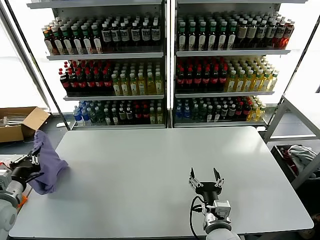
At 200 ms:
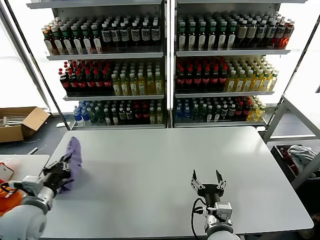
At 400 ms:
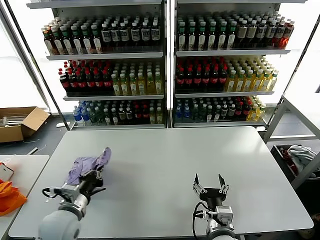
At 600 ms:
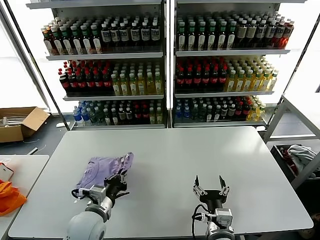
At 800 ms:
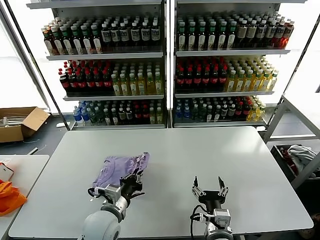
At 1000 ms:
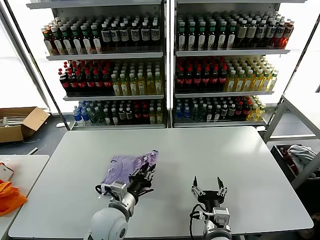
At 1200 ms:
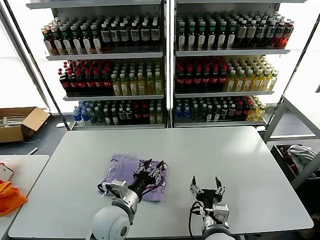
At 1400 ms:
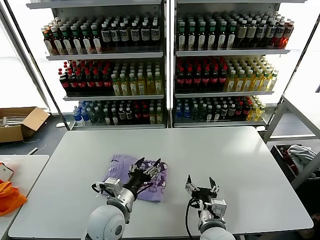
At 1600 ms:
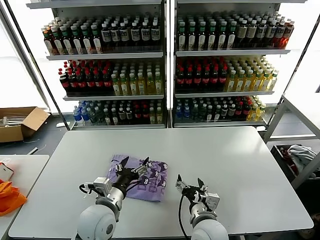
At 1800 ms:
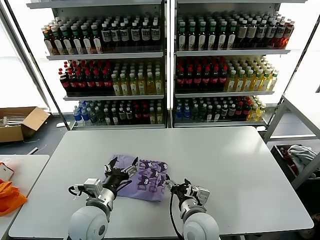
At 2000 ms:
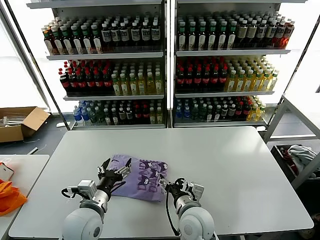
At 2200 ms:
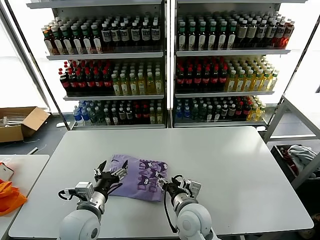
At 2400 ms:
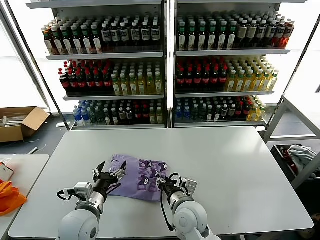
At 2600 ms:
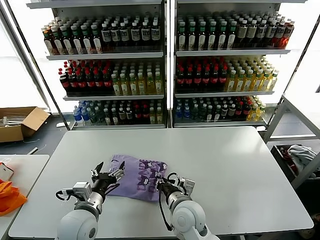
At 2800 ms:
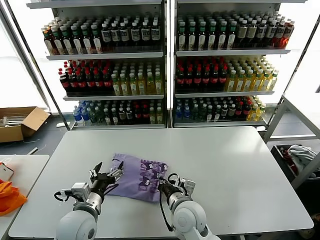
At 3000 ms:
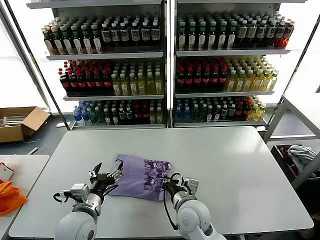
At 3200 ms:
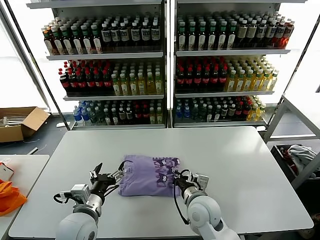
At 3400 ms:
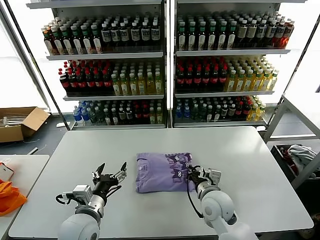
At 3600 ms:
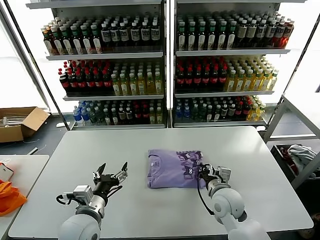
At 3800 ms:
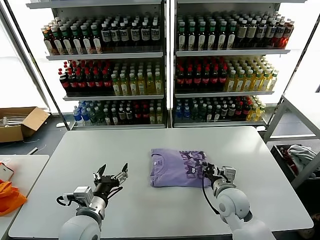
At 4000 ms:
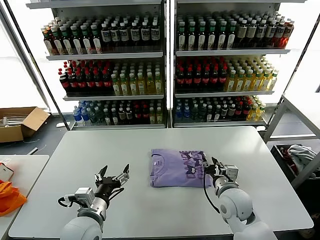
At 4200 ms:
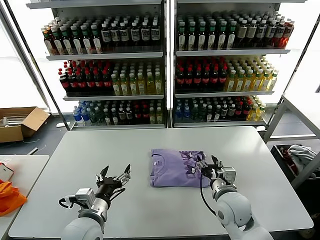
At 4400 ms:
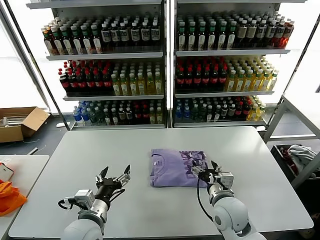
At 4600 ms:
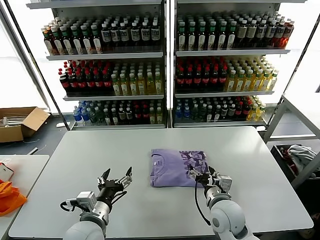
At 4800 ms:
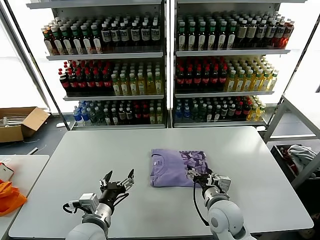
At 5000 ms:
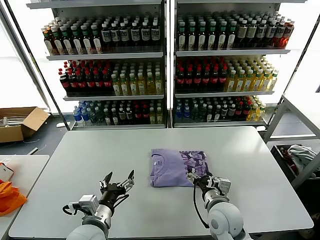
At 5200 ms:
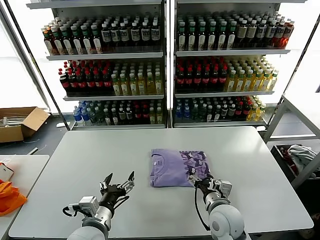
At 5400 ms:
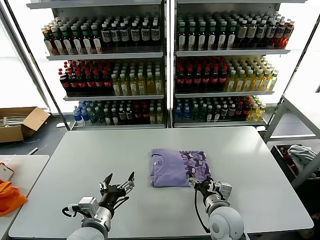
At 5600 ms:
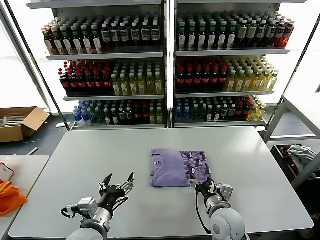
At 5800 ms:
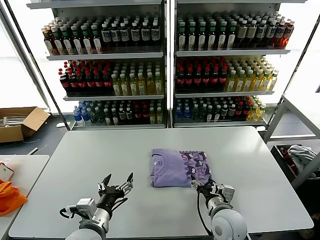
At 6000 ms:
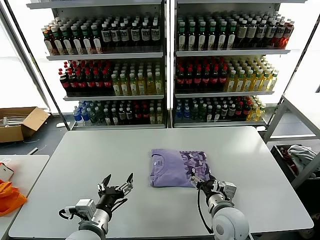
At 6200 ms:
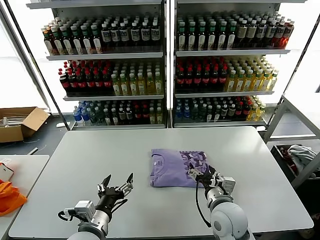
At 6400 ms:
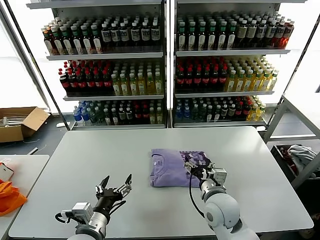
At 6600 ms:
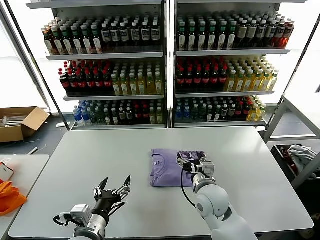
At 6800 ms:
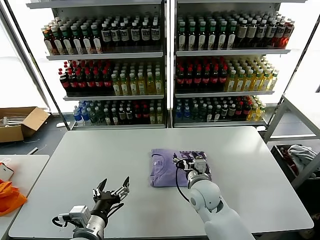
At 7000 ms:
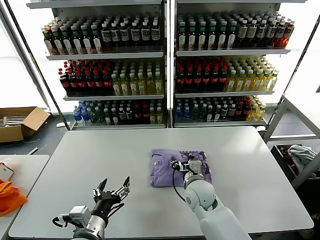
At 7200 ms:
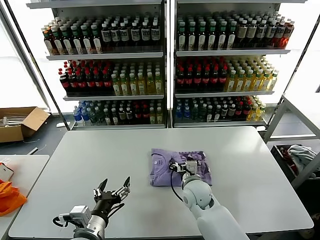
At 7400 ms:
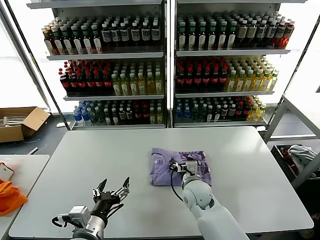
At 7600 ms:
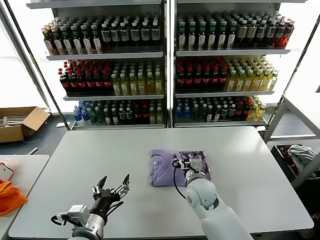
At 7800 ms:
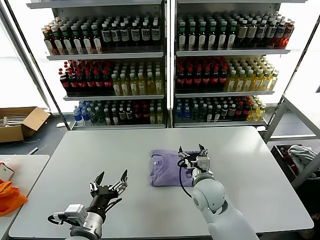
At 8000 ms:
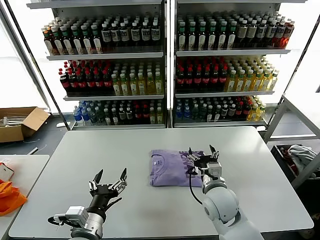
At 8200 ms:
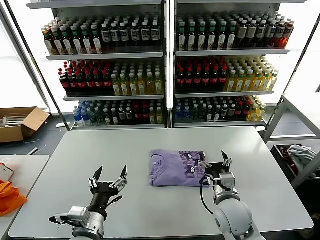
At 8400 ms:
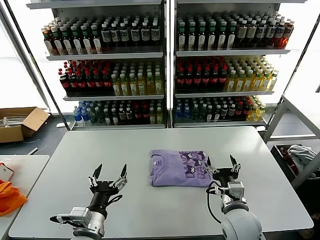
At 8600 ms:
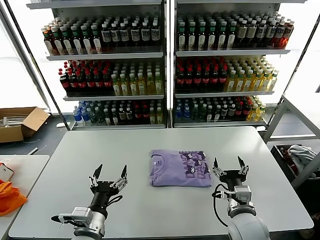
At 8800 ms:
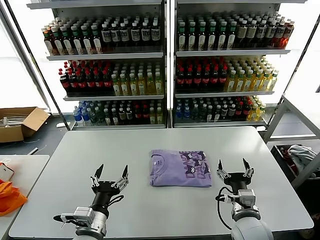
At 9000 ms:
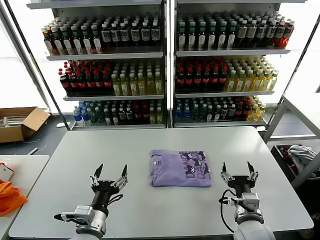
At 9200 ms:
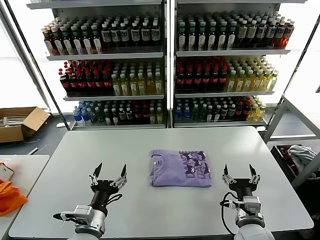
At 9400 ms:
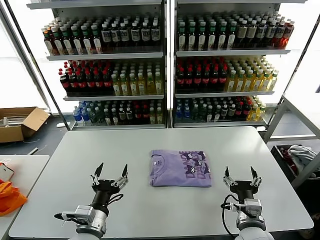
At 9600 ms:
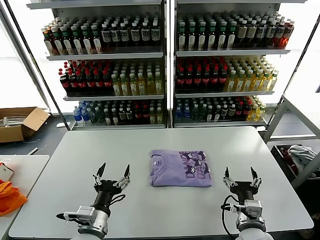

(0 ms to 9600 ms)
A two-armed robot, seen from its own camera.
Task of the whole recording: fold and organize the clothes.
Step, 1200 ms - 7400 ms: Drag the clothes to the center of the table.
0 ms - 1600 ms: The left gripper moves to the right, about 25 cm, and opens.
1600 ms - 3200 ms: The left gripper travels to the left by roughly 5 cm, while the right gripper moves forward, about 5 cm, and closes its fingers.
3200 ms - 4800 ms: The right gripper moves to the right, about 5 cm, and opens.
4800 ms - 6400 ms: There are only small adjustments of the grippers.
8000 ms - 9600 ms: The right gripper goes some 15 cm backward and to the right.

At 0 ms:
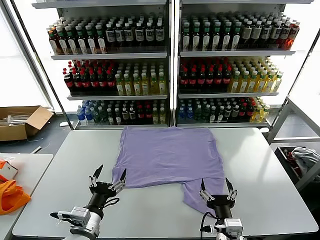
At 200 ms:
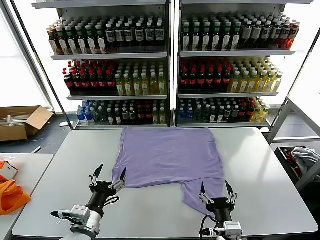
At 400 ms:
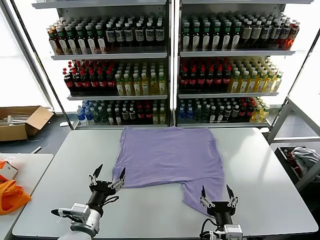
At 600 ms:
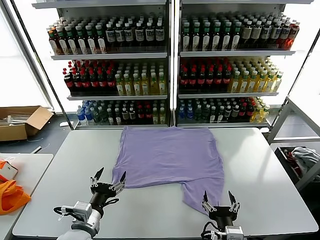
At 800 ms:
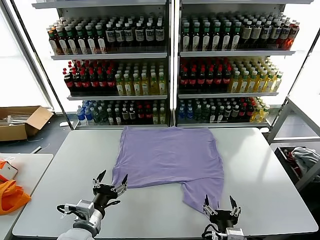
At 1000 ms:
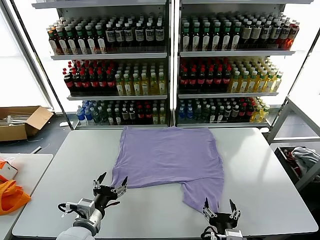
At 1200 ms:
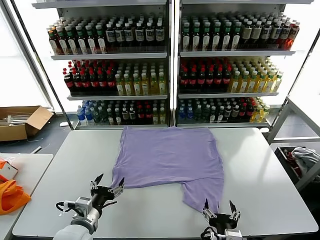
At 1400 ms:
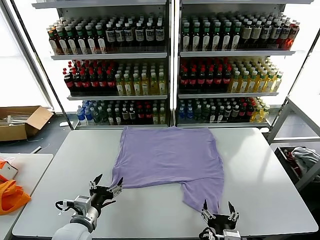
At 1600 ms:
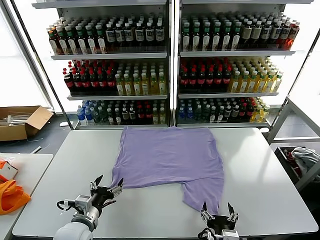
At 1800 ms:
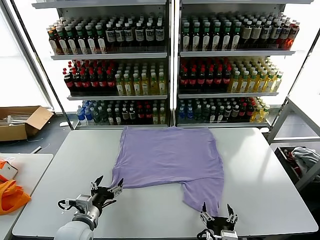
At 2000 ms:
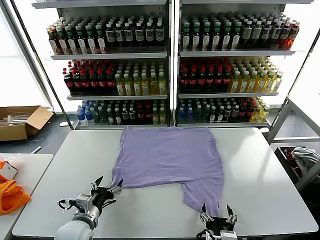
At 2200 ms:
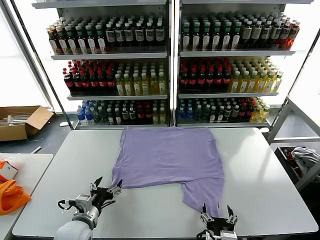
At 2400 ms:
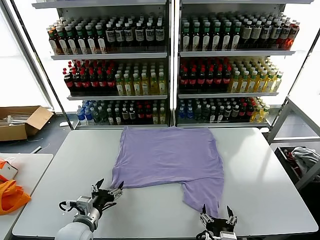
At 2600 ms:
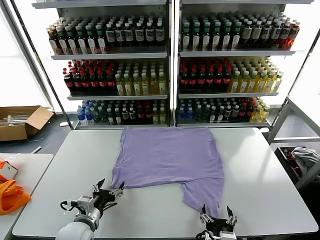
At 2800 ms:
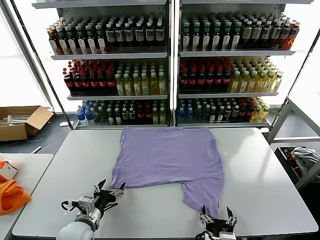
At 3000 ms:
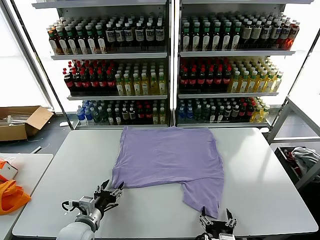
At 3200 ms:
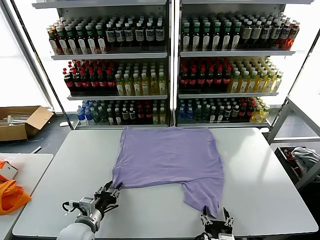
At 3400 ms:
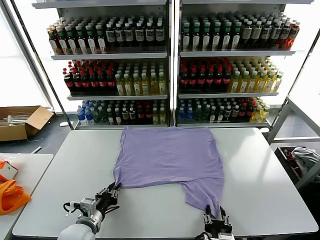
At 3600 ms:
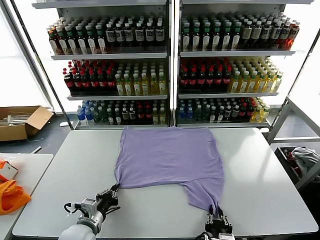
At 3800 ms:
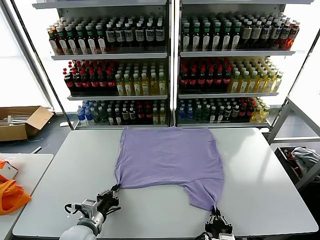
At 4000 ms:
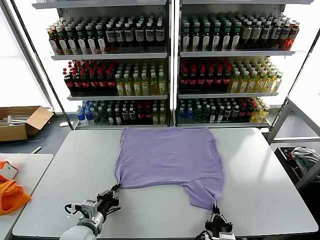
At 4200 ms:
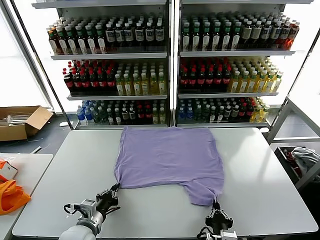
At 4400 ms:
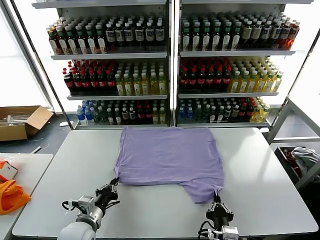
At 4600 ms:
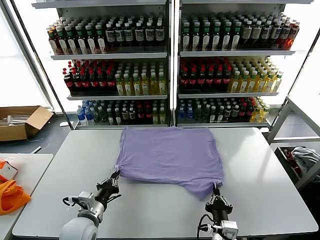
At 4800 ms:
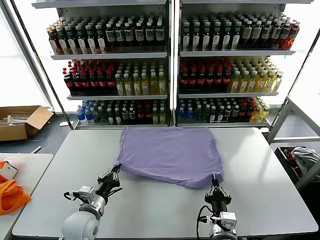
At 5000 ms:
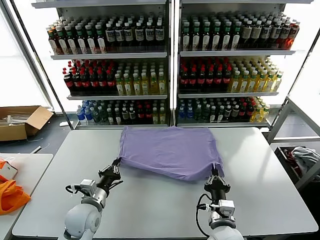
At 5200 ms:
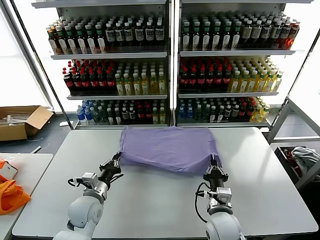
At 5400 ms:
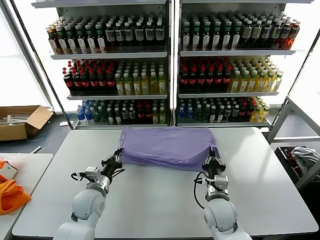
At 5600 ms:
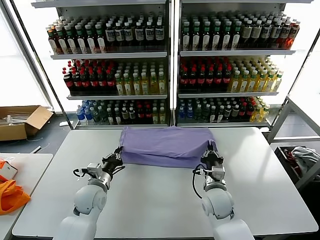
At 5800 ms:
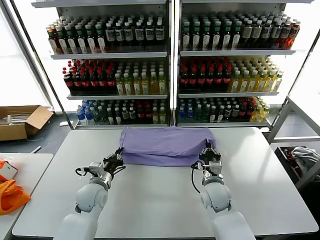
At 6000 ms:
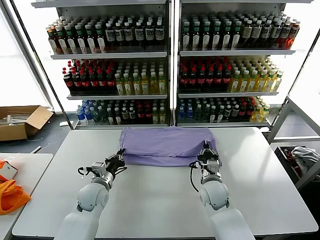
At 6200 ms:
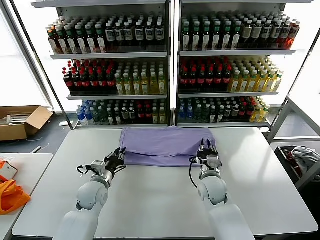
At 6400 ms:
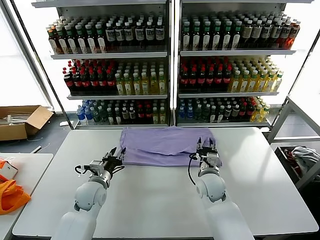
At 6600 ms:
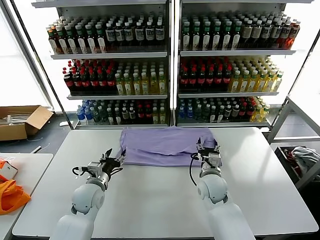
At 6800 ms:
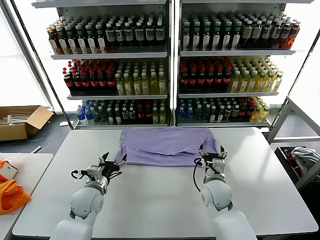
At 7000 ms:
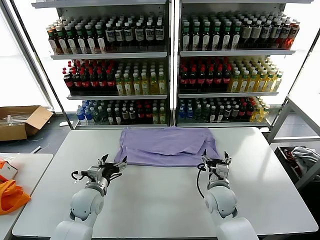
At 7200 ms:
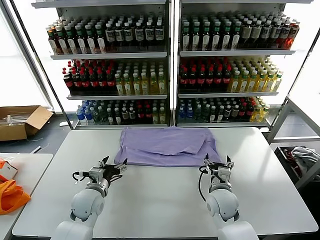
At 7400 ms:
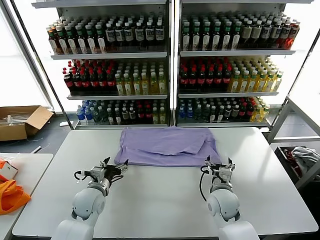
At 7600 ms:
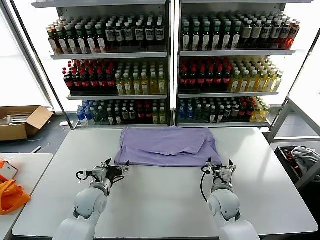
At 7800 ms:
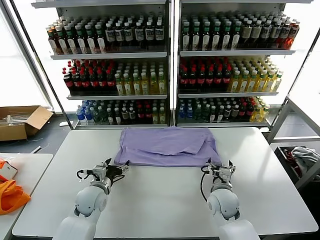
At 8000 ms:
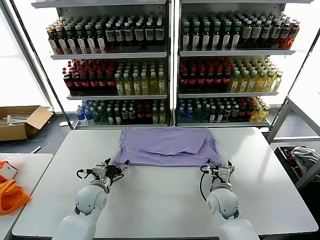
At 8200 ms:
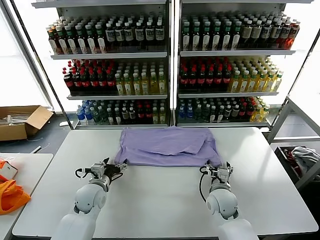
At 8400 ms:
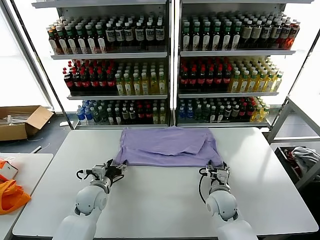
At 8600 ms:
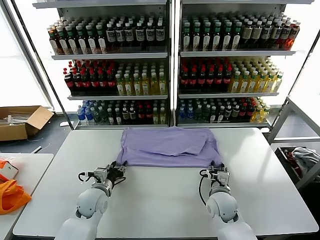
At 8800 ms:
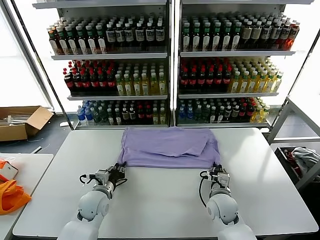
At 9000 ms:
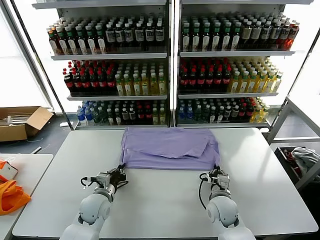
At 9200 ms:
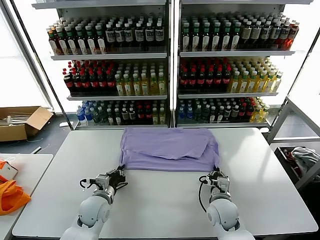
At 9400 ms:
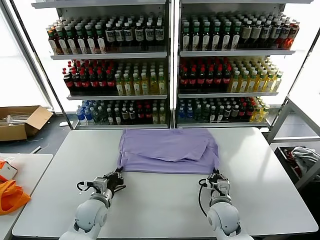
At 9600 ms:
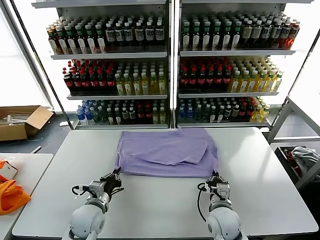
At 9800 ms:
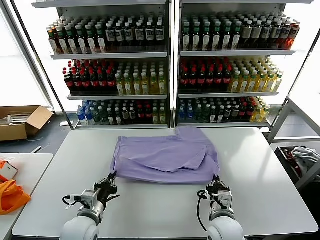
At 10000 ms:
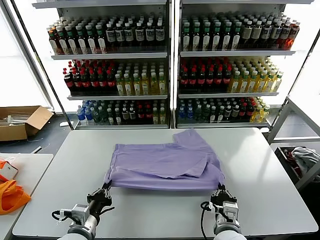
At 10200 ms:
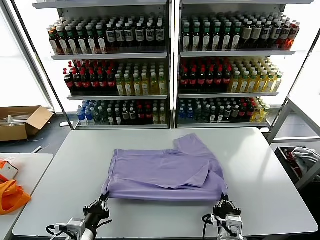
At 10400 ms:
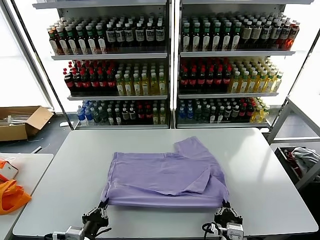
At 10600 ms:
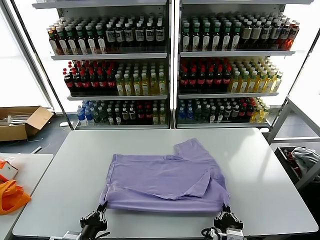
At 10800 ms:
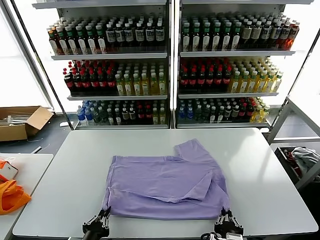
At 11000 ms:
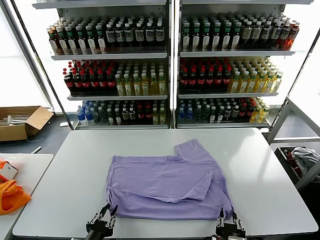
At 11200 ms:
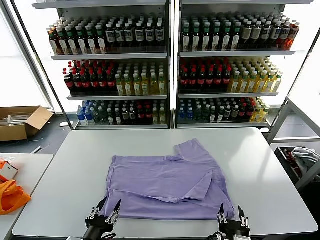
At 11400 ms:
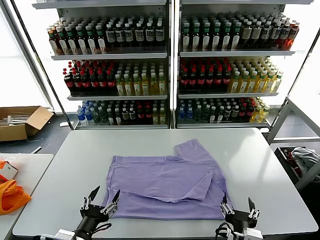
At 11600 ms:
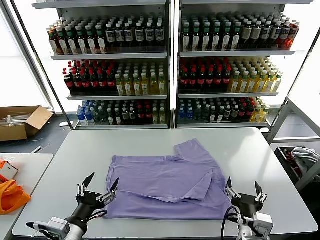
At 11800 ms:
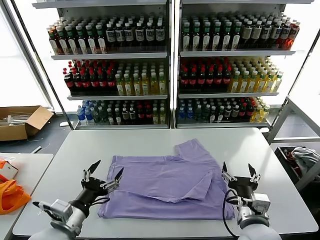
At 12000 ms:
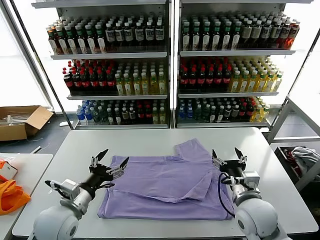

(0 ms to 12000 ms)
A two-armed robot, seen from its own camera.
Task of the whole recording: fold and organize the clothes.
Step, 0 ms - 4200 ms: use both grippers simultaneously to clamp the lower edge of the clothing fabric.
Step, 4400 ms - 6200 ms: use both grippers to drag the lower edge of the fabric forward and fold it over the upper edge.
Step, 6400 ms - 11000 ms: Drag the clothes downward with both gripper.
1600 ms - 3000 ms: There are only small adjustments of the grippers.
3000 ms - 4400 ms: The right gripper closes. The left gripper closes up.
4400 ms - 6000 ms: The right gripper is displaced forward by approximately 25 cm, while the left gripper travels forward by about 15 cm.
6000 ms - 7600 ms: The right gripper shifts by roughly 5 cm, and opens its fingers. The left gripper opens its fingers.
7600 ms - 9000 ms: The right gripper closes up, while the left gripper closes up.
9000 ms - 10400 ms: The grippers both shift backward by about 20 cm.
10400 ms - 12000 ms: The right gripper shifts roughly 20 cm forward, to the right and upward, and opens, while the left gripper shifts about 15 cm forward and upward, and opens its fingers.
